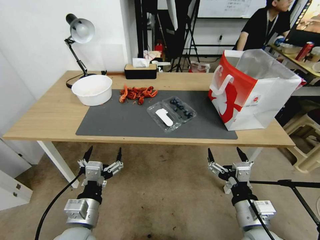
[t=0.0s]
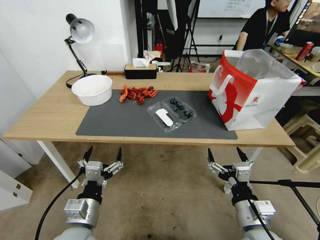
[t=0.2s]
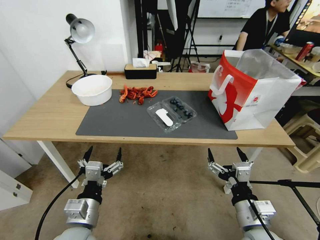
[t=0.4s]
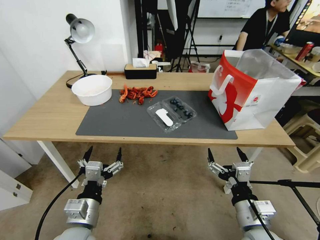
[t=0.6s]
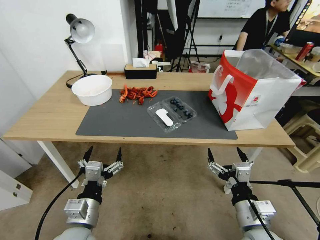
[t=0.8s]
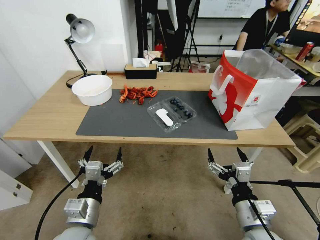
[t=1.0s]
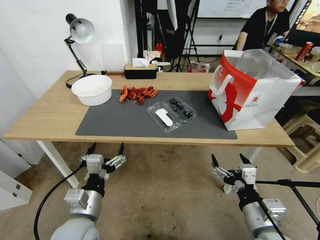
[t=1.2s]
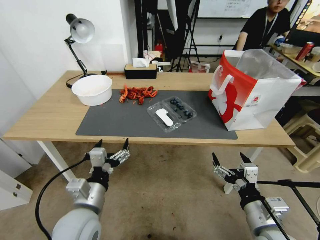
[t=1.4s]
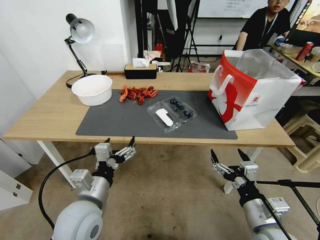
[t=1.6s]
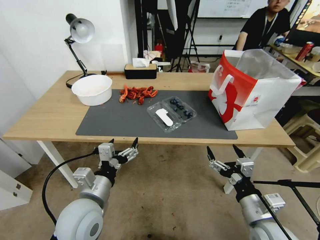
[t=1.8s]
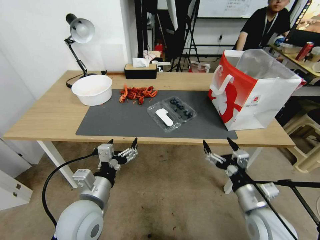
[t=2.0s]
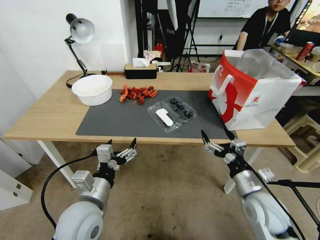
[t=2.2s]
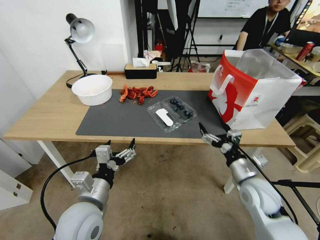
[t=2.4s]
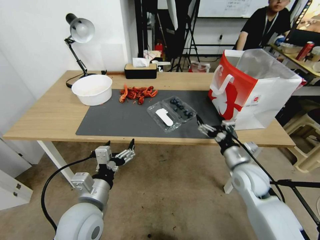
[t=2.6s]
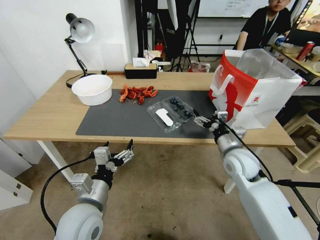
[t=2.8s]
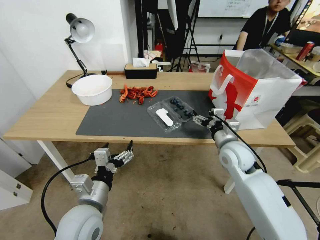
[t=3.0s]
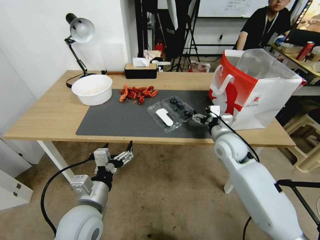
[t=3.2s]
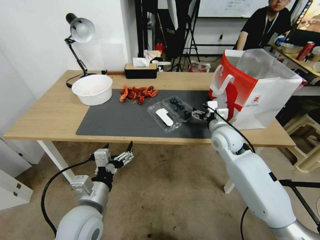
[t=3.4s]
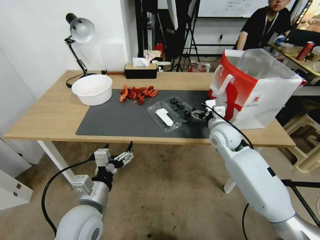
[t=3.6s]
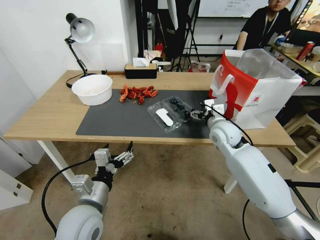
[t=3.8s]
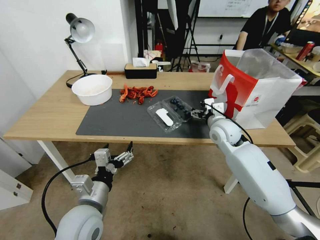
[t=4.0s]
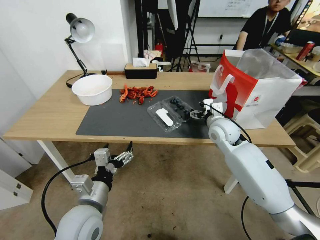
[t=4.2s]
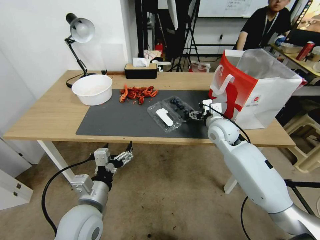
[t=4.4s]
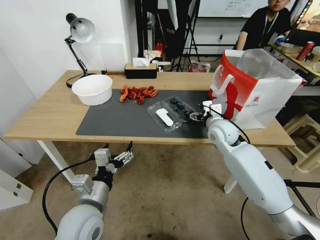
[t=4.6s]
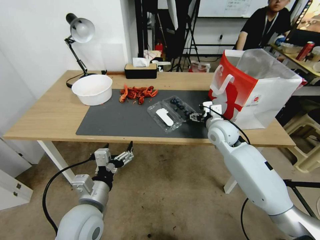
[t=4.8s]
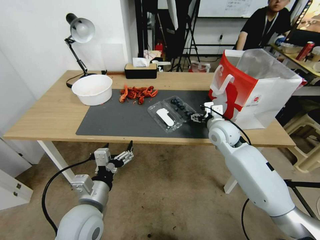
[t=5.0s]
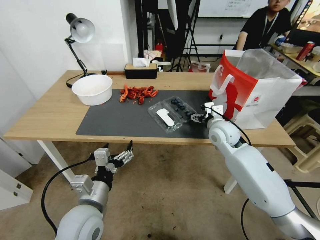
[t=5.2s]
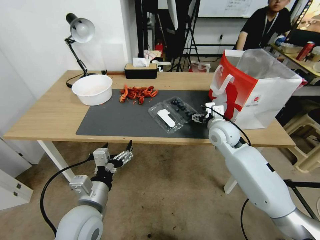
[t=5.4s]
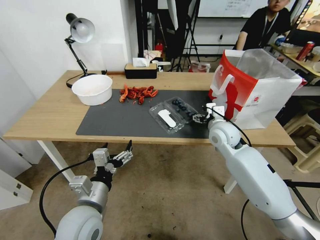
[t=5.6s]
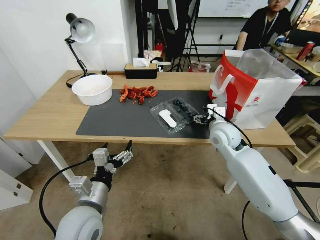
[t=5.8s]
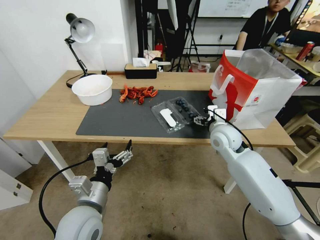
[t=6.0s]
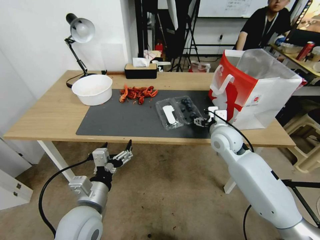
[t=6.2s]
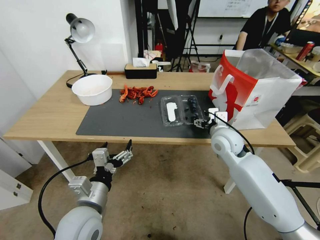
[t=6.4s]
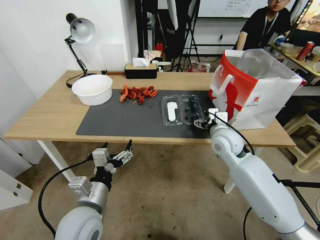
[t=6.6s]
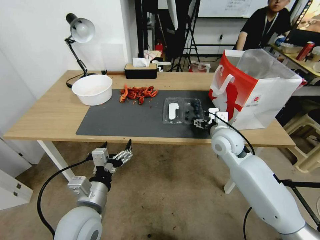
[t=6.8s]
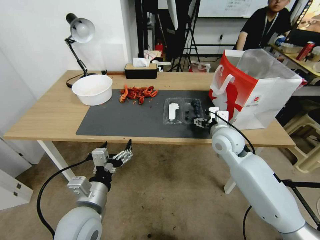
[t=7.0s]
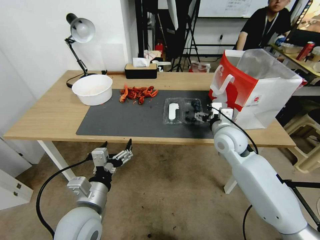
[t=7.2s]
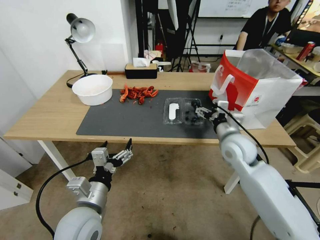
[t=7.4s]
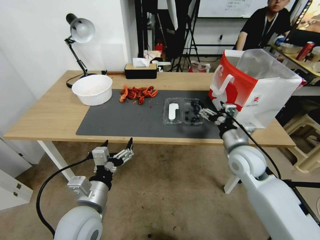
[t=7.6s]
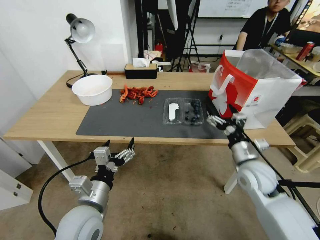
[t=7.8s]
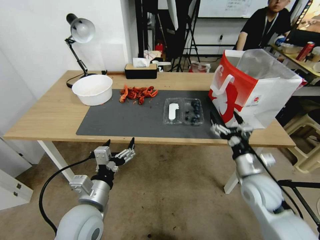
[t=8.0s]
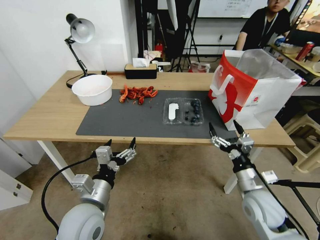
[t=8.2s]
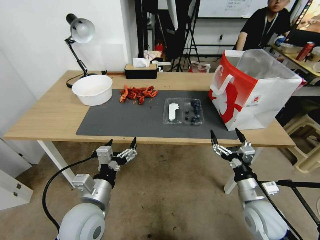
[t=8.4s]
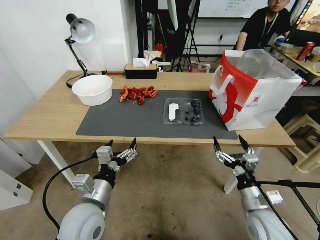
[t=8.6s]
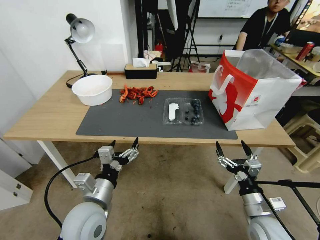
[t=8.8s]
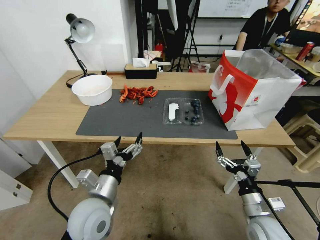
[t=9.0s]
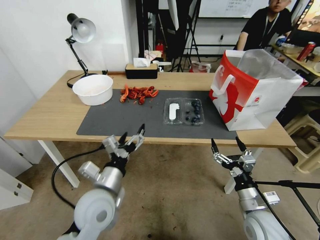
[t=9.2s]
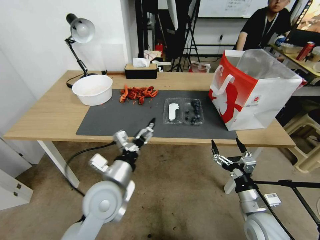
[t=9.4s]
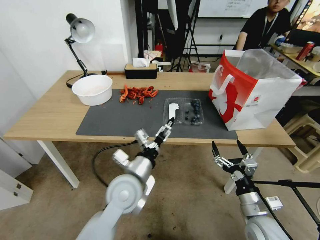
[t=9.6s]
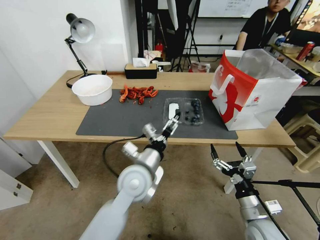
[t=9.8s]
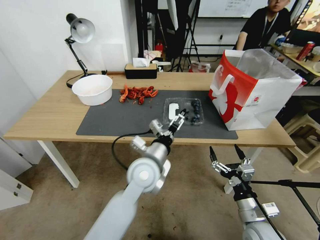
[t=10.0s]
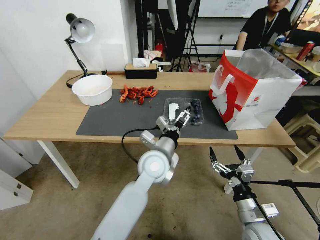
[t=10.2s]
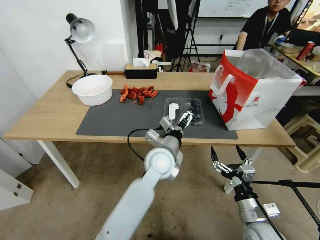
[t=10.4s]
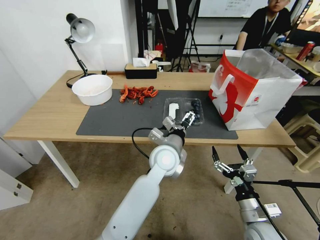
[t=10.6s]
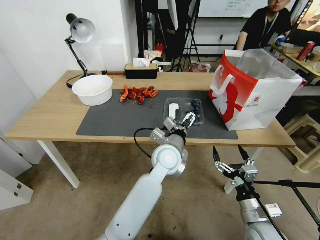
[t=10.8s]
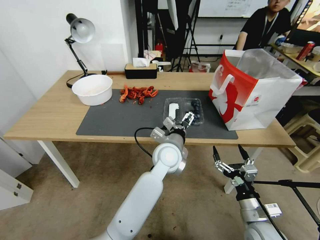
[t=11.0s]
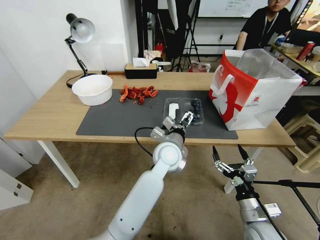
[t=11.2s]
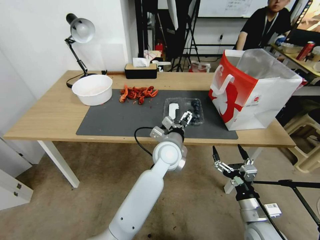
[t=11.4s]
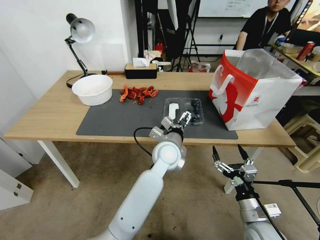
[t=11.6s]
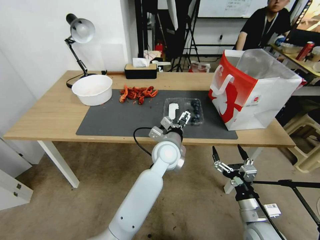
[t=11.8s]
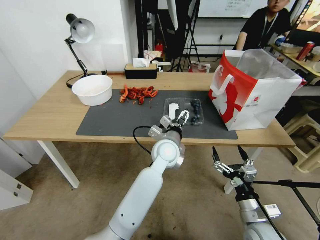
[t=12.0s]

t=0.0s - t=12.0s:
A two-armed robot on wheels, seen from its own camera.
Task of the whole recording: Close the takeout container lid, then place the container into the takeout bag.
t=1.6s - t=3.0s: The right gripper goes some 25 cm forward.
t=3.0s - t=4.4s: The right gripper moves forward, some 10 cm.
t=4.4s - t=6.0s: The grippers stay close to where they were, moving slightly.
t=6.0s - t=7.6s: The right gripper goes roughly 5 cm backward.
t=7.6s - t=9.0s: The right gripper moves backward and downward, some 20 cm.
t=9.0s - t=10.4s: The left gripper shifts about 20 cm to the right and forward.
t=10.4s - t=12.0s: The grippers make only small movements.

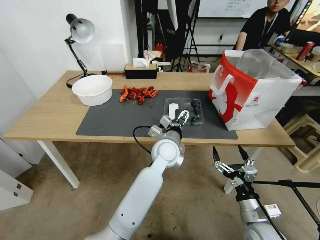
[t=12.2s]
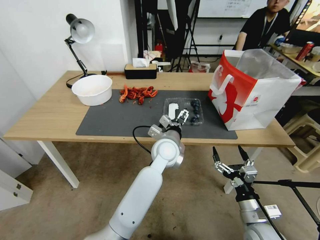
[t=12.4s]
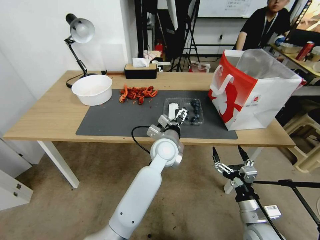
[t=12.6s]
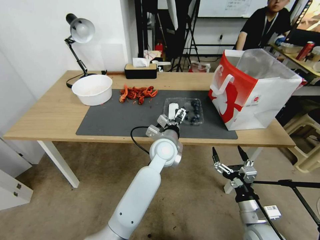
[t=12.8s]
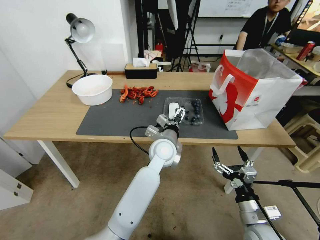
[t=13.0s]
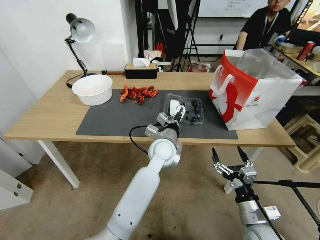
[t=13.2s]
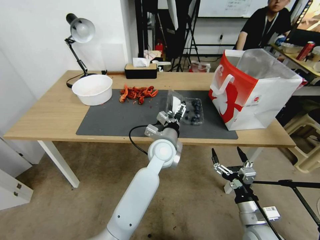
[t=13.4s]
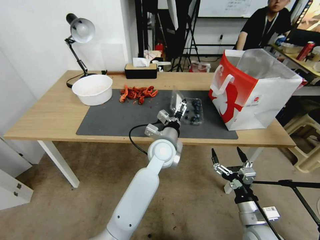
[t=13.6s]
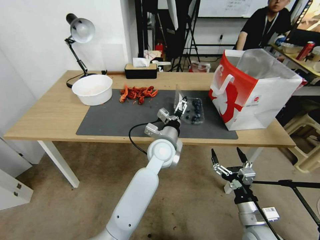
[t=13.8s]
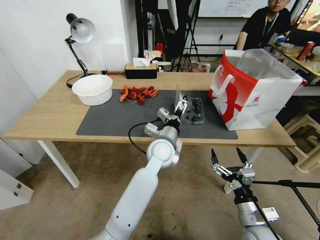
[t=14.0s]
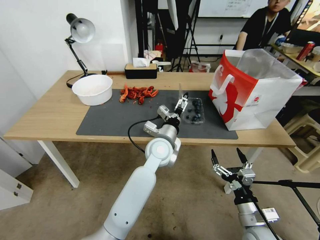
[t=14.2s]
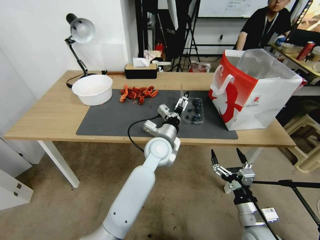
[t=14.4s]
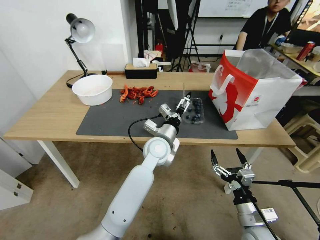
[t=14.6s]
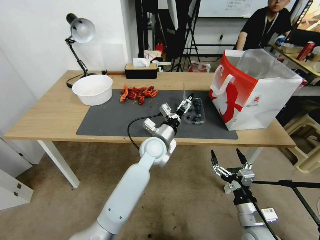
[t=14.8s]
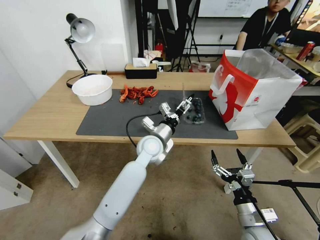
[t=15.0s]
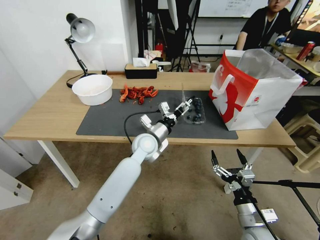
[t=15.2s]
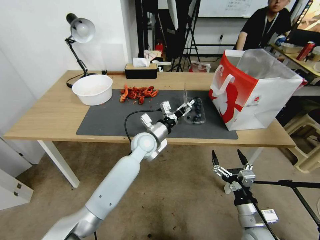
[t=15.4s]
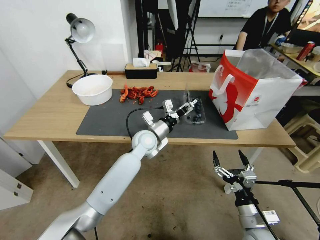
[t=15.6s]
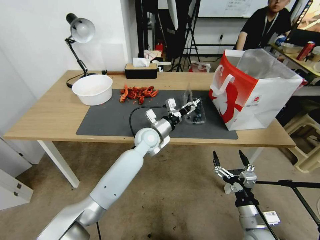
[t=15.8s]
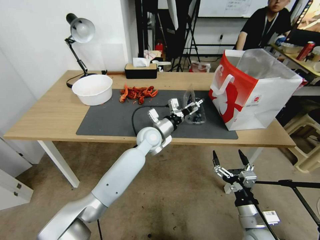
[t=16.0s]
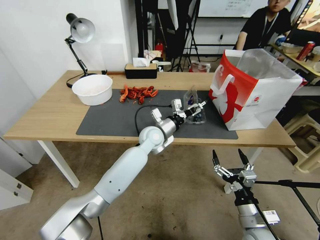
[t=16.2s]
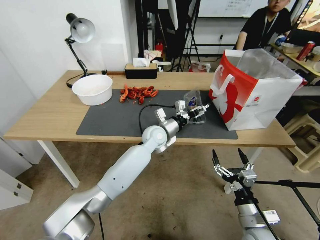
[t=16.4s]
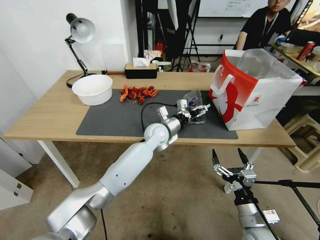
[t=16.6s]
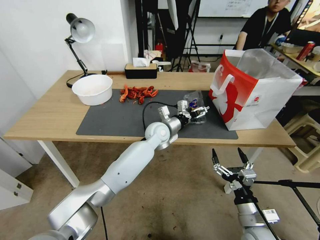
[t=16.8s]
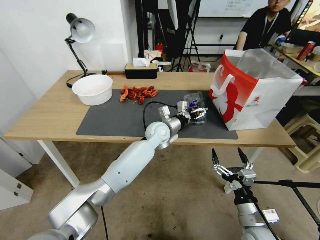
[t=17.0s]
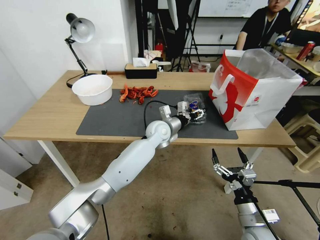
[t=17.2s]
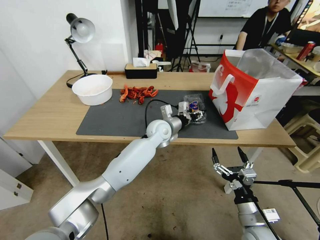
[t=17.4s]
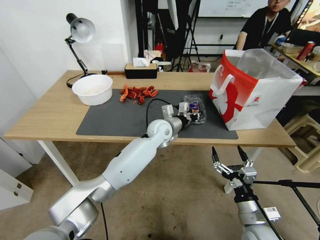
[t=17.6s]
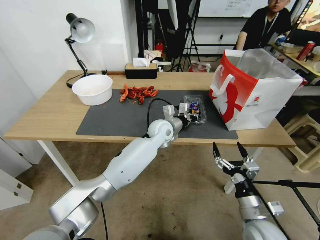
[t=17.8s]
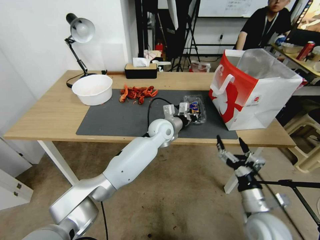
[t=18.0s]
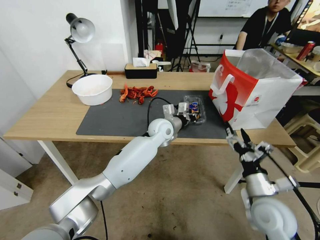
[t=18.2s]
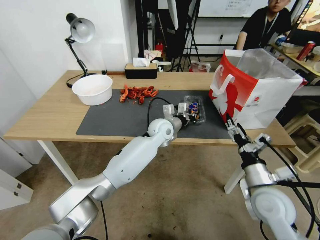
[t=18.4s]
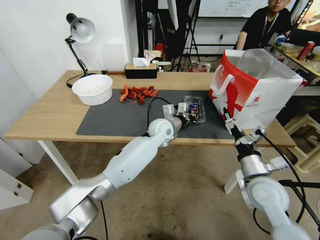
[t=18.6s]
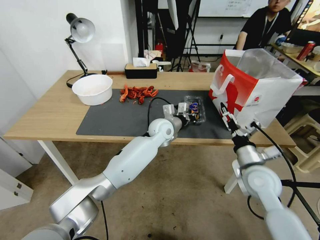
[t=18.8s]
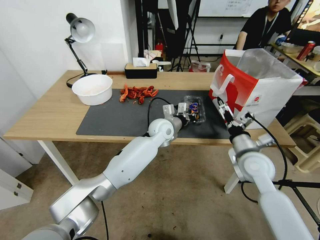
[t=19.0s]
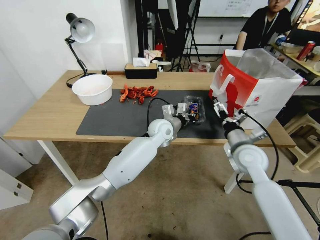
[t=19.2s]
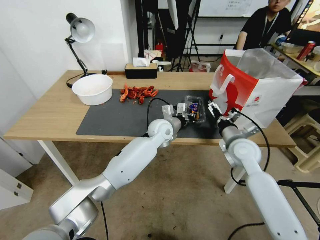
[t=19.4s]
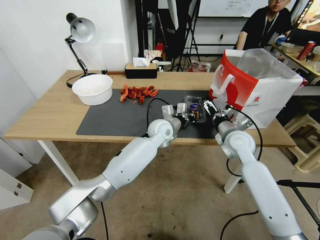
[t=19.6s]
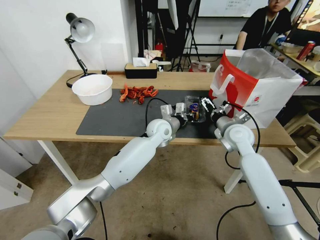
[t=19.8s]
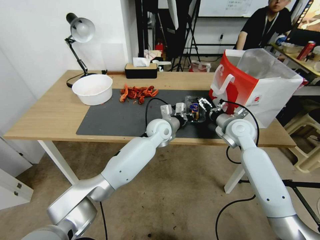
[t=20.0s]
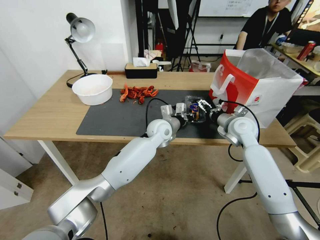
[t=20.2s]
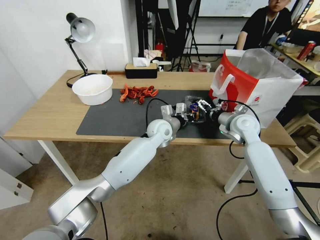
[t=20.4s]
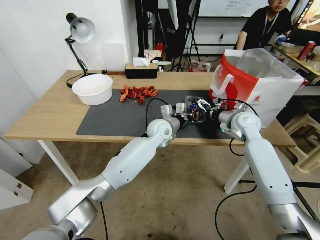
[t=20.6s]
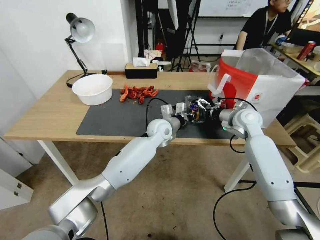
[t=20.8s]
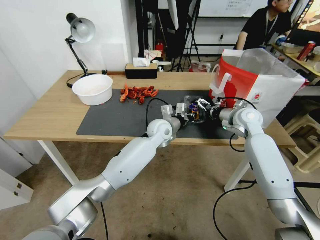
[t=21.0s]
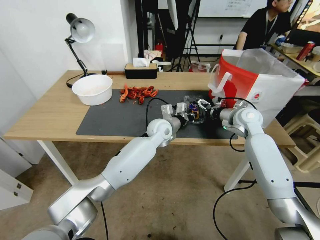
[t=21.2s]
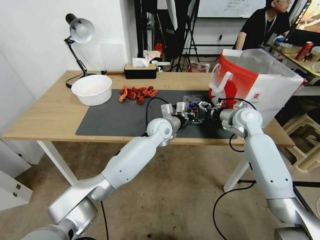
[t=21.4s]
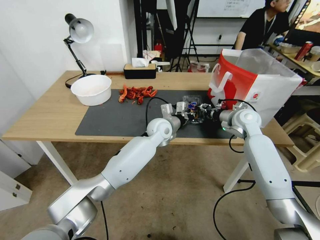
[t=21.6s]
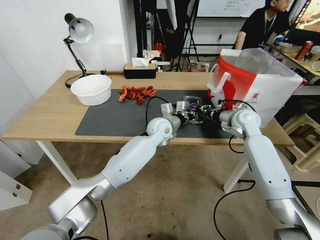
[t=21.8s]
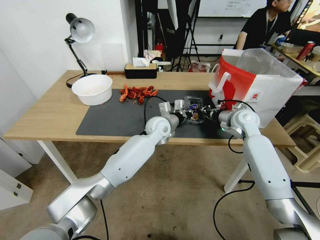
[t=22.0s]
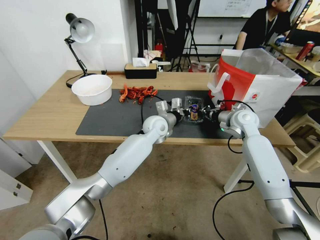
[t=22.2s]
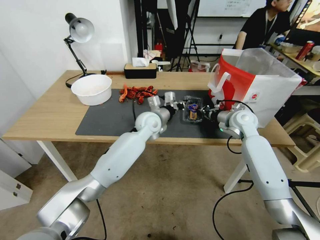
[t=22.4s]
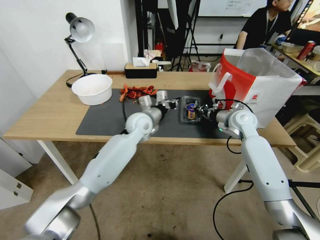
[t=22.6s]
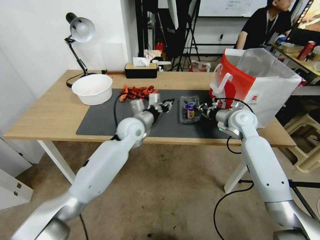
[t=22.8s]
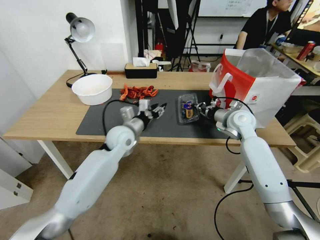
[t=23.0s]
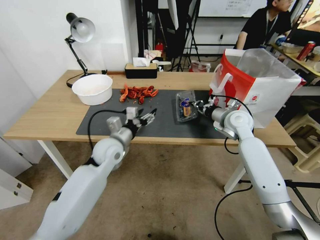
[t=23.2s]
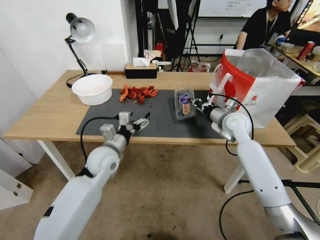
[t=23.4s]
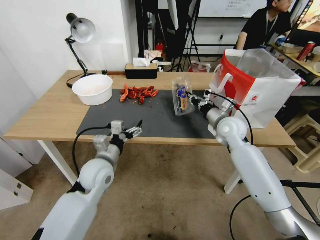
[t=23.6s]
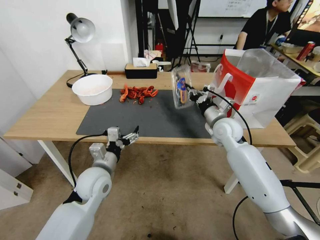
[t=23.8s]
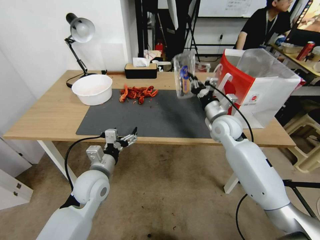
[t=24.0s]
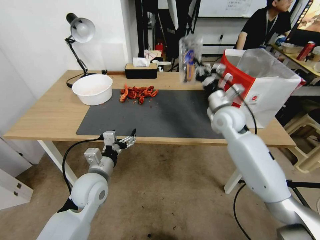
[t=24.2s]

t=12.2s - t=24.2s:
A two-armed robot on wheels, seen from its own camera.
Task of the whole recording: Close the takeout container lid, then place the container into the takeout bag.
t=12.2s - t=13.8s: The grippers make only small movements.
t=13.8s - t=15.2s: The left gripper heads to the left, covering some 5 cm.
t=15.2s - t=16.6s: The left gripper goes roughly 5 cm forward.
t=16.6s - t=18.2s: The right gripper travels upward and forward by about 10 cm; the left gripper closes its fingers.
t=18.2s - t=19.8s: The right gripper shifts approximately 25 cm forward.
t=19.8s - t=21.2s: The right gripper travels forward by roughly 5 cm.
t=21.2s - t=22.6s: The right gripper closes its fingers; the left gripper goes approximately 5 cm to the left.
t=22.6s - t=24.2s: The left gripper moves backward and to the left, roughly 25 cm, and opens, while the right gripper shifts some 5 cm to the left.
